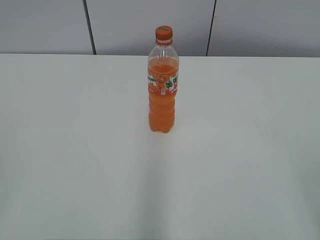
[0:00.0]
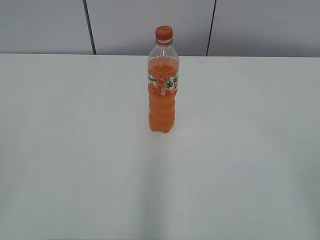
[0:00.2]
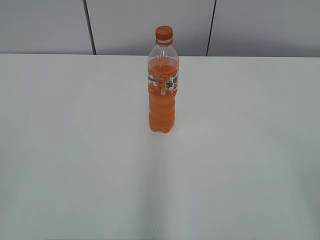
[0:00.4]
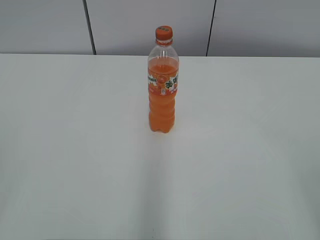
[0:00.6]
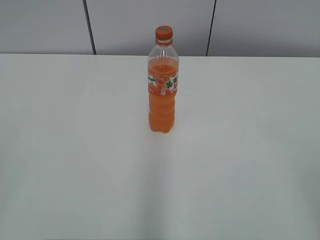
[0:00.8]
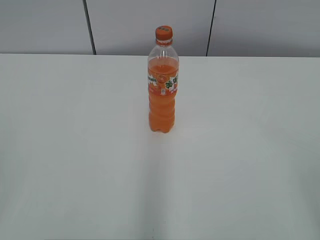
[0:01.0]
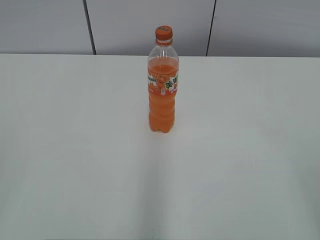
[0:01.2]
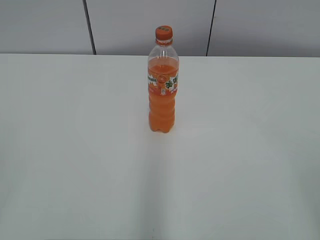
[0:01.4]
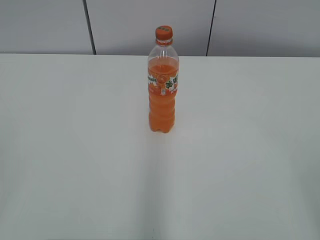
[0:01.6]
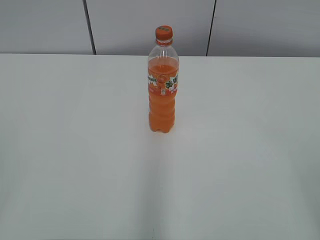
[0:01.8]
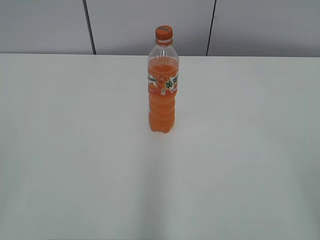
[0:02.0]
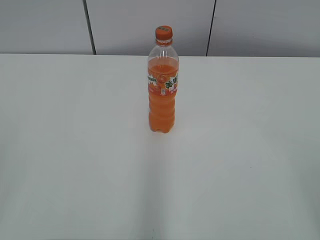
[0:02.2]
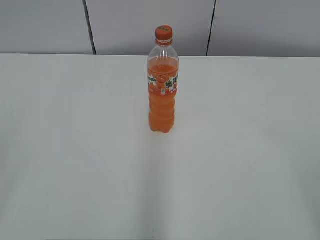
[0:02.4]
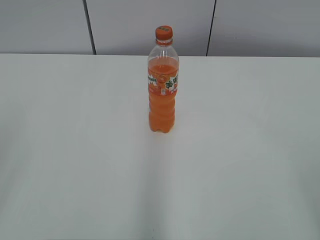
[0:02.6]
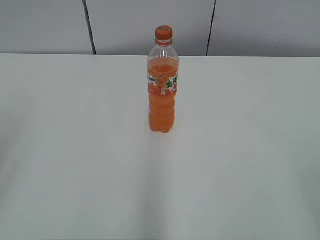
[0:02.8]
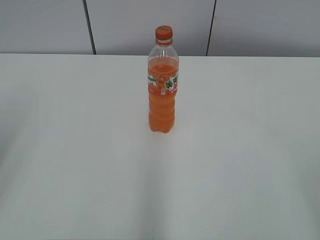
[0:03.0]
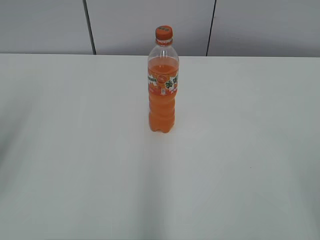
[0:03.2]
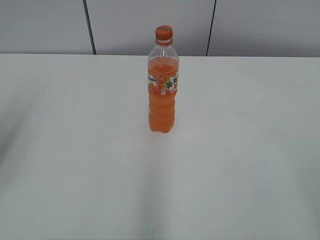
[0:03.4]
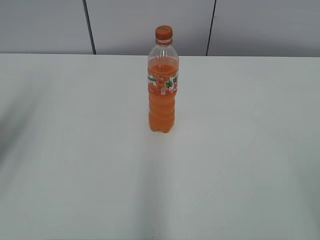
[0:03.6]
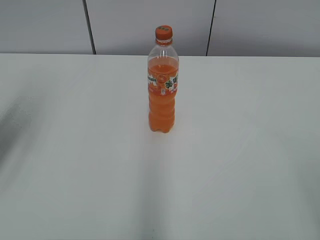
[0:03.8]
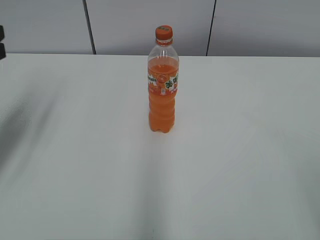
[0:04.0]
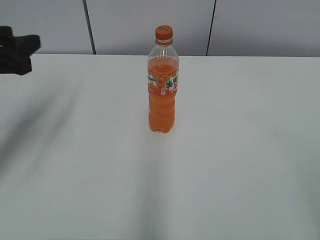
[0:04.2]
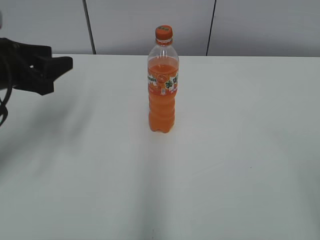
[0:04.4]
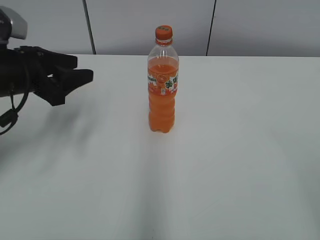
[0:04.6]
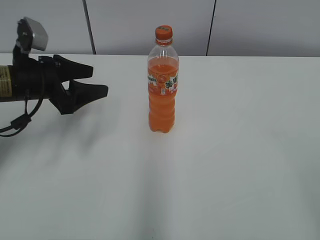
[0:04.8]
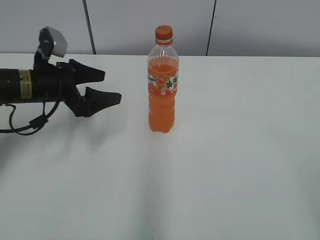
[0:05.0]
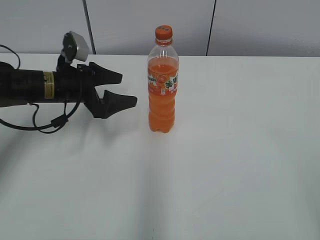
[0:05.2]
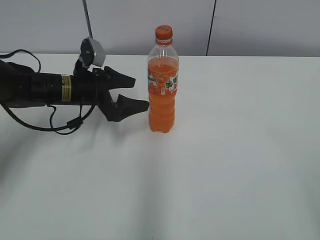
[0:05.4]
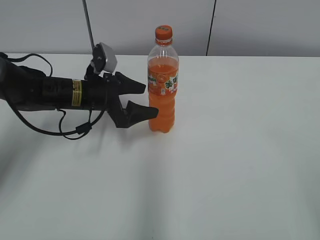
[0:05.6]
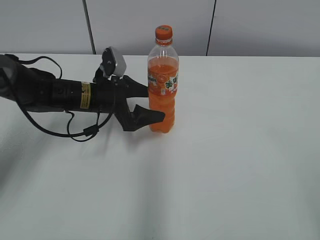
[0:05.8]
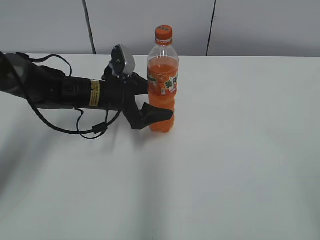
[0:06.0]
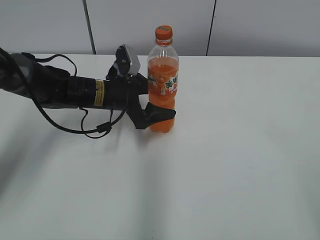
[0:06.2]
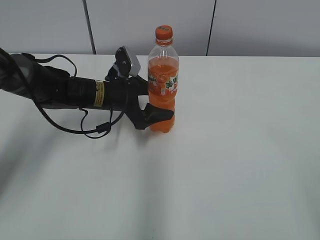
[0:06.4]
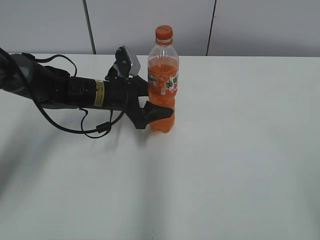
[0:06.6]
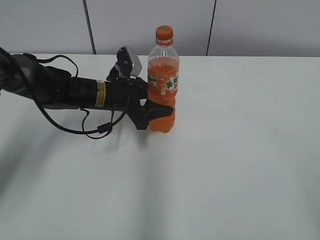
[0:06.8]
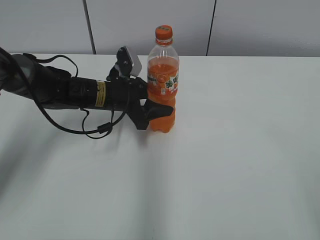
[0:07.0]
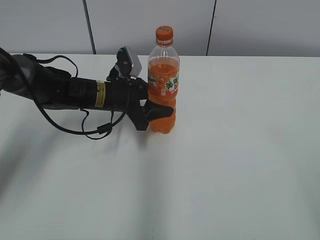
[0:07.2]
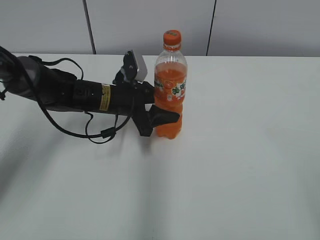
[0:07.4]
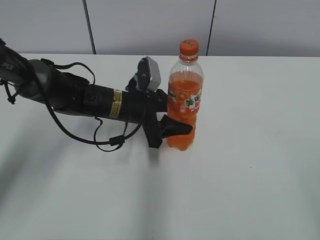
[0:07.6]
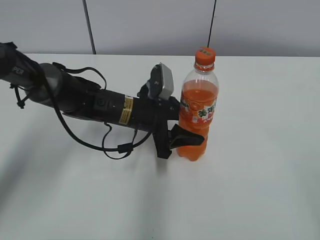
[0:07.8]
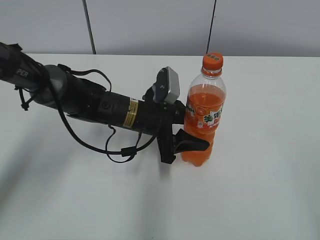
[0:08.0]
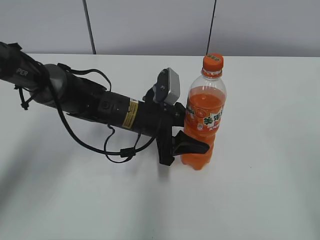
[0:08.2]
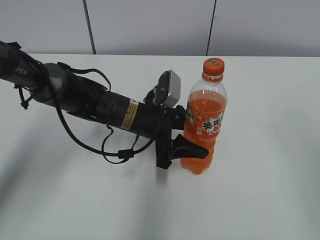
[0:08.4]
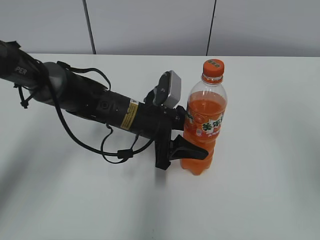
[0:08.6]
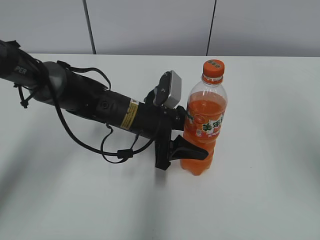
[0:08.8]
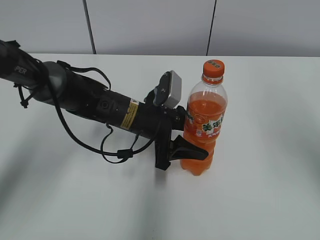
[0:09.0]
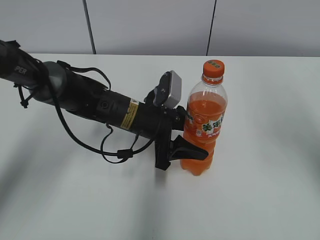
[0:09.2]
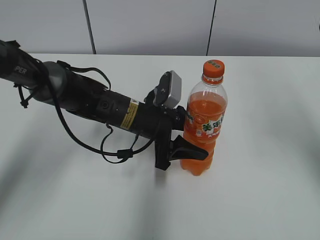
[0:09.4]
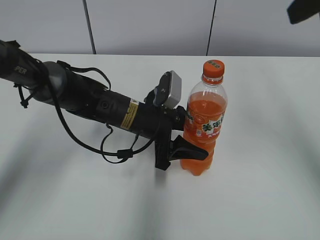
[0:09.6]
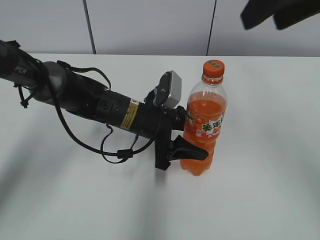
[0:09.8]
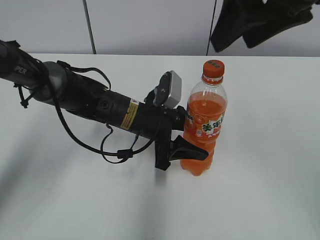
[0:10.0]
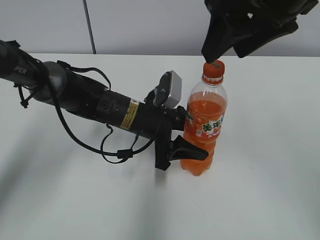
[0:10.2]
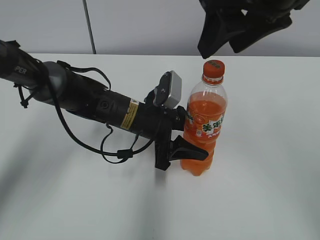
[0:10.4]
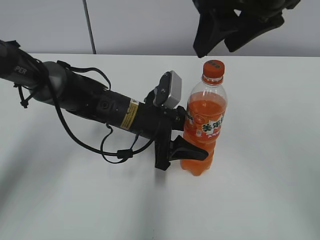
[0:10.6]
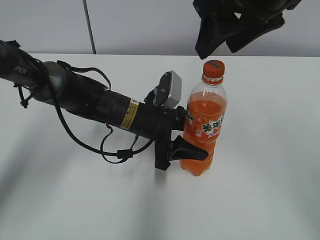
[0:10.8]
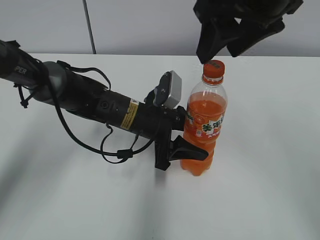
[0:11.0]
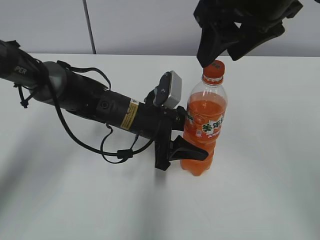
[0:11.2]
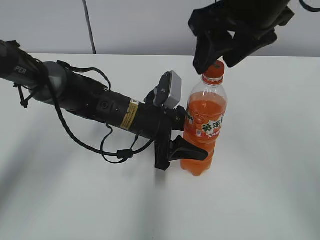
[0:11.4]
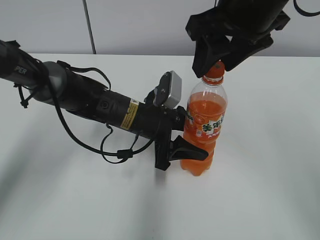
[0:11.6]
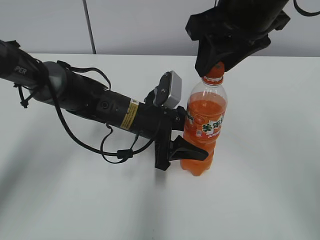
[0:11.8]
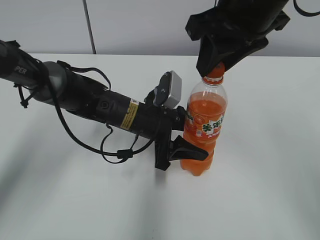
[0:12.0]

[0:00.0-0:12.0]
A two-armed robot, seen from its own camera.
Step, 0:00.0 to 0:07.2: Grab the Mirinda with the left hand.
Step, 0:07.4 to 0:09.0: Move the Mirinda from left to right.
0:03.0 to 0:04.4: The left gripper heads forward and downward, covering about 20 cm, and opens its fingers.
0:04.4 to 0:06.0: The left gripper is displaced to the right, downward and forward by about 20 cm, and opens its fingers.
0:06.0 to 0:07.6: The left gripper closes its fingers.
0:07.6 to 0:09.0: The right gripper is displaced forward and upward by approximately 25 cm.
0:09.0 to 0:10.4: The right gripper is displaced to the left and forward by about 15 cm.
0:10.4 to 0:12.0: The right gripper closes up.

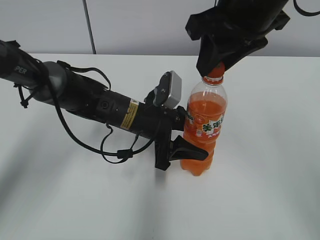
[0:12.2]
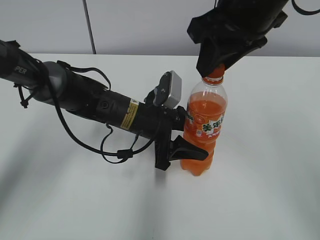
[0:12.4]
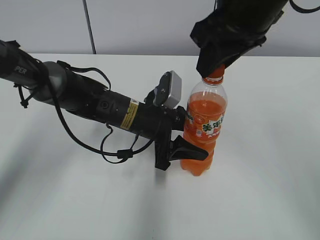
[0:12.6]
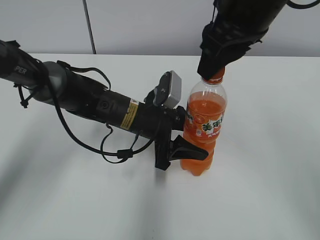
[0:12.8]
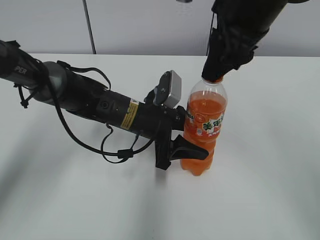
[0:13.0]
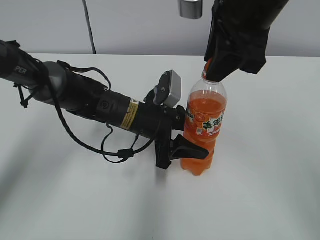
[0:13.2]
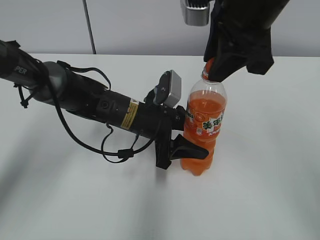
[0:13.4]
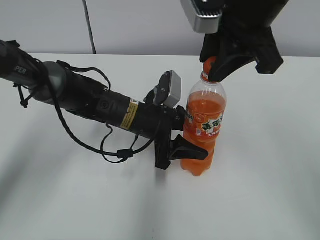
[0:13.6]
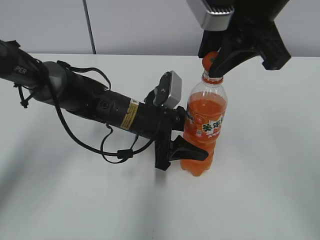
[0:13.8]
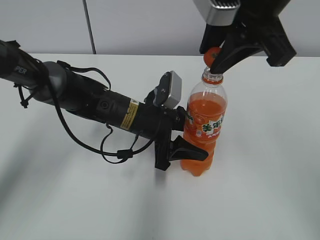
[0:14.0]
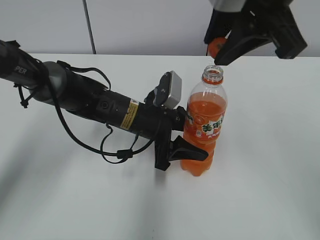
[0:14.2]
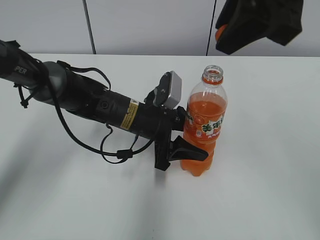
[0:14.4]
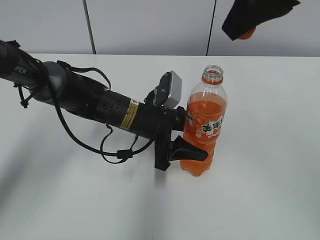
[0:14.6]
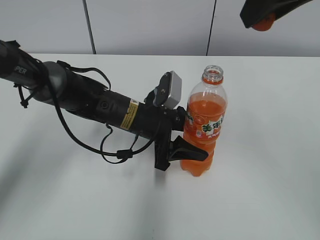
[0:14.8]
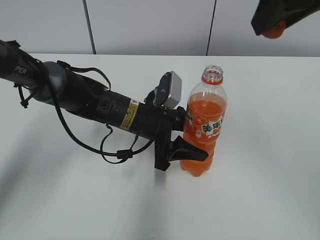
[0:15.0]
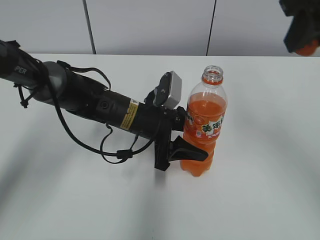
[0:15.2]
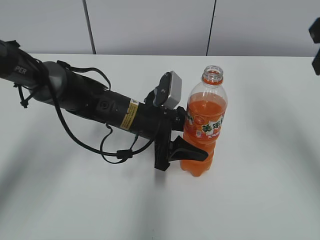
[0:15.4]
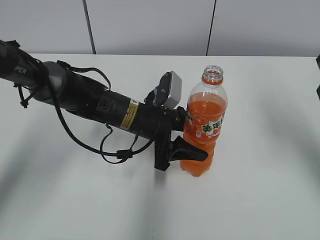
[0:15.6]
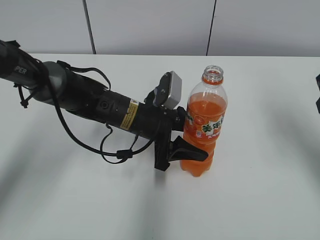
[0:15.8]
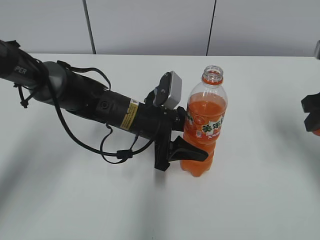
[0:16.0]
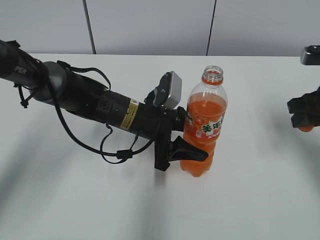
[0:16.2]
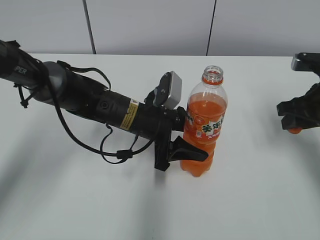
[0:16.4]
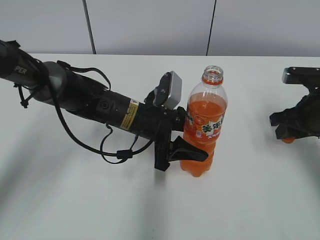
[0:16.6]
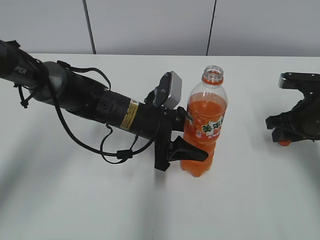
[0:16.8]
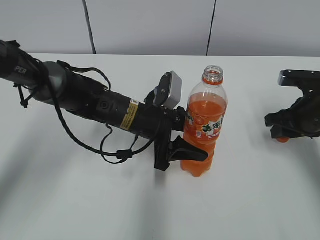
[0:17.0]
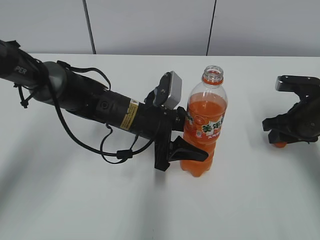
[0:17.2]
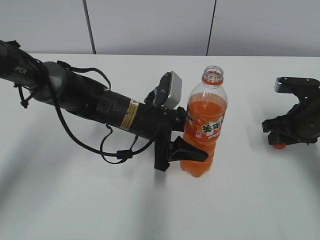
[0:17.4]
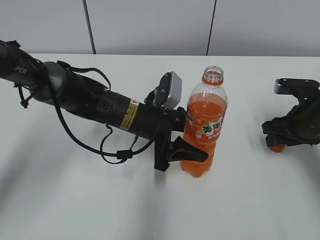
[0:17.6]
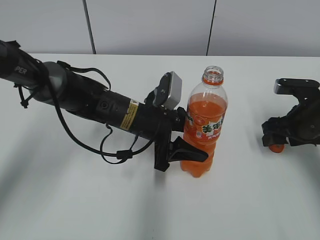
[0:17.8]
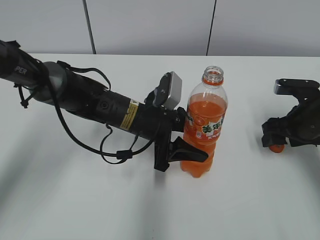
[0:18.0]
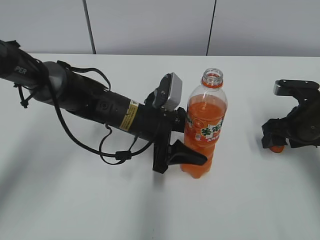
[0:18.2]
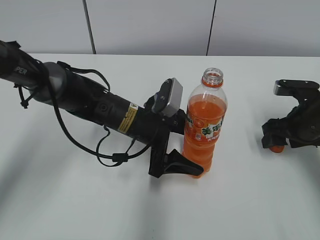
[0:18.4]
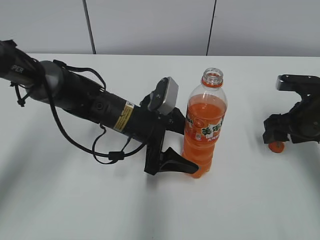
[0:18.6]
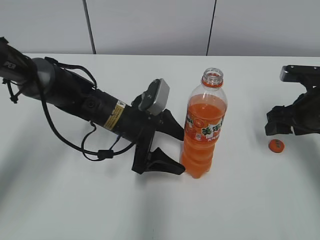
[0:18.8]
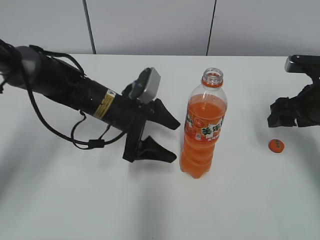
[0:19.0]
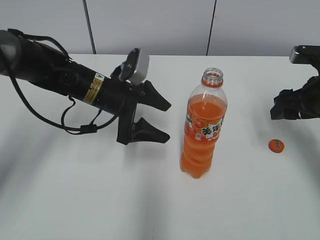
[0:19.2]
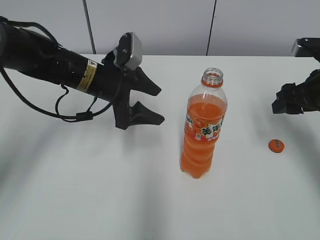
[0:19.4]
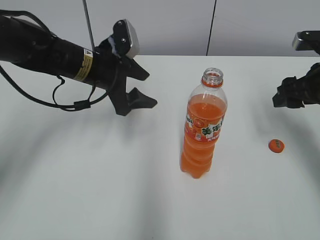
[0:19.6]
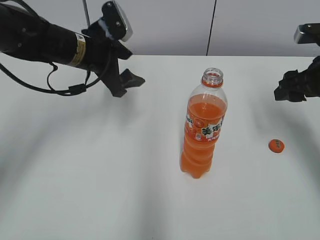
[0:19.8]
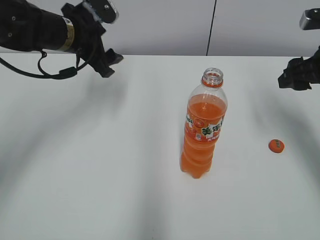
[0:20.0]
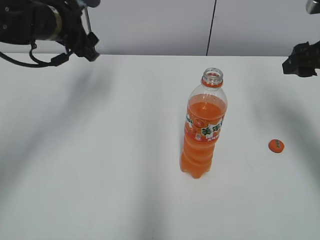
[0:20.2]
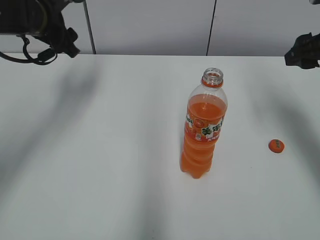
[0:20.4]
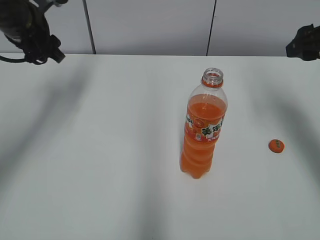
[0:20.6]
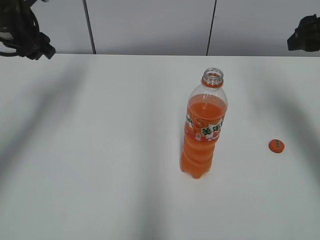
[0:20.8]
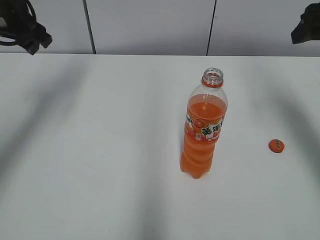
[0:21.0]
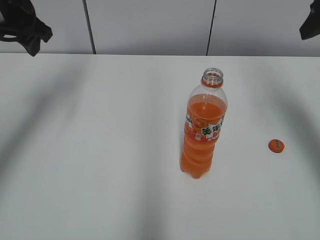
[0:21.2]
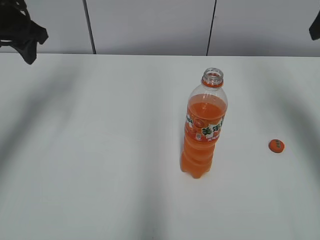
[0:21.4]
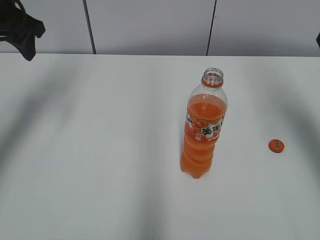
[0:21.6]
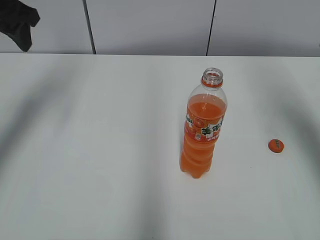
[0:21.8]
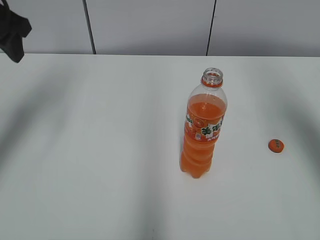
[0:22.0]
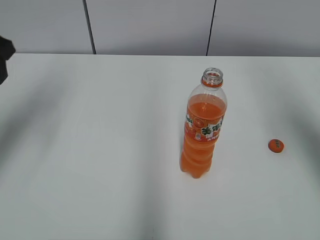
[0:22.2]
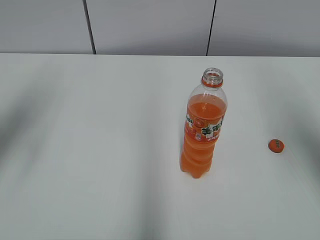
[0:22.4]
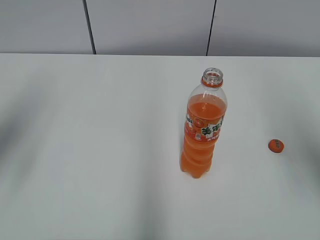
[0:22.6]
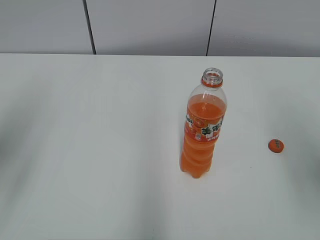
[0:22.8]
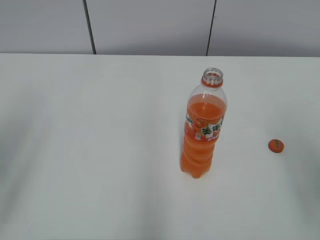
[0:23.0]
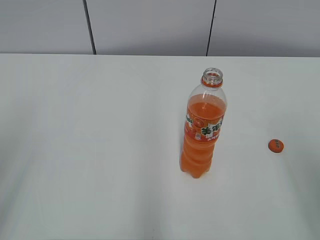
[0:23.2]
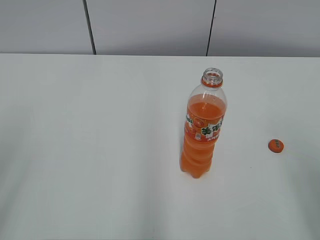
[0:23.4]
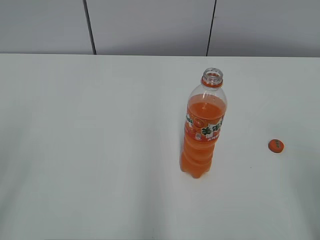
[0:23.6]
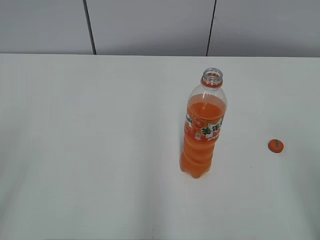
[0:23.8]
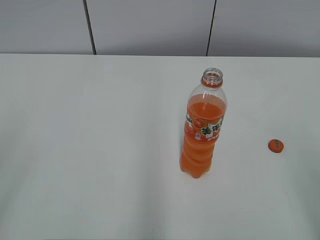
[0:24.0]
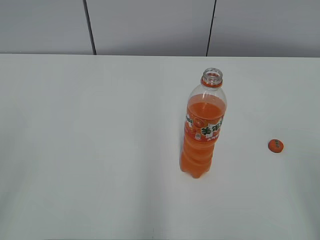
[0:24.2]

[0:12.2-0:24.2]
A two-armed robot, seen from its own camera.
Step, 0:14.2 to 0:17.4: Place the bottle cap on the right.
Step, 0:17.8 to 0:18.2: Place the Mirinda with the left hand.
0:13.8 to 0:15.2: The right gripper is displaced to the right by roughly 10 cm.
0:15.2 to 0:16.6: The right gripper travels downward by approximately 25 cm.
0:16.6 to 0:18.2: The right gripper opens up.
0:18.2 to 0:19.8: The left gripper moves to the left, upward and forward, about 15 cm, while the right gripper shifts roughly 10 cm upward.
0:19.8 to 0:21.2: The right gripper travels upward by roughly 15 cm. Meanwhile the left gripper shifts approximately 15 cm to the left and upward.
0:21.2 to 0:22.6: The two grippers go some 15 cm backward.
0:22.6 to 0:24.2: The left gripper goes about 20 cm backward. Meanwhile the right gripper travels backward and downward by approximately 20 cm.
